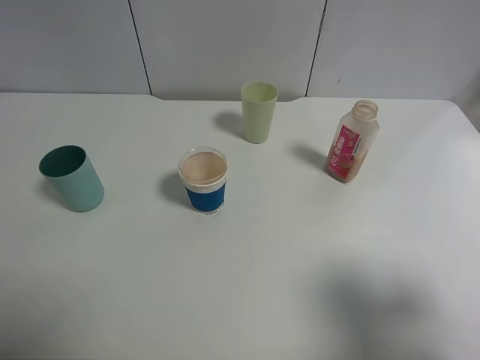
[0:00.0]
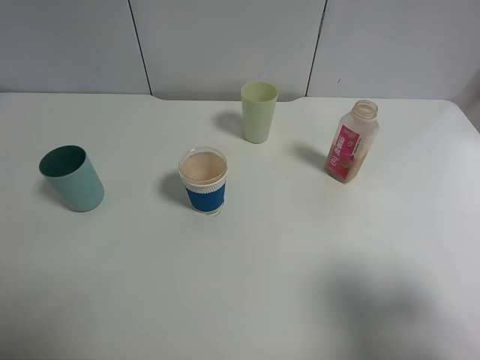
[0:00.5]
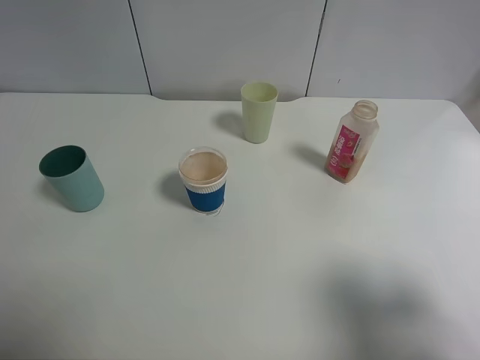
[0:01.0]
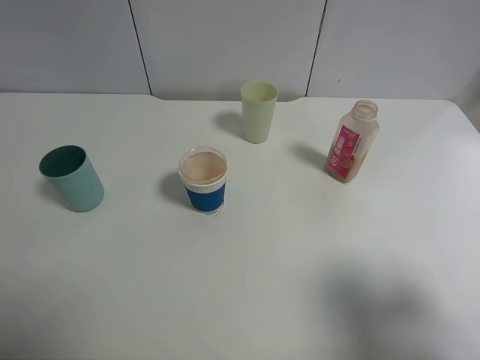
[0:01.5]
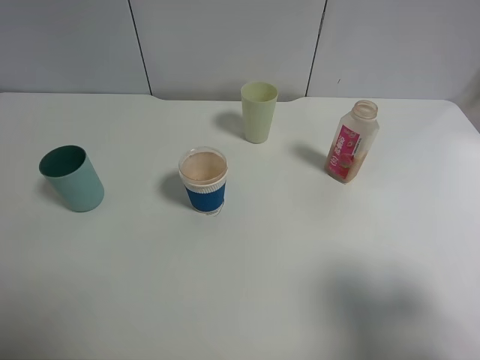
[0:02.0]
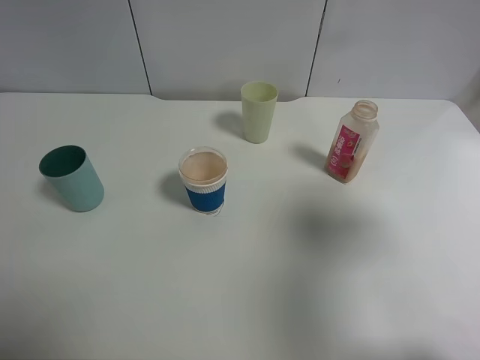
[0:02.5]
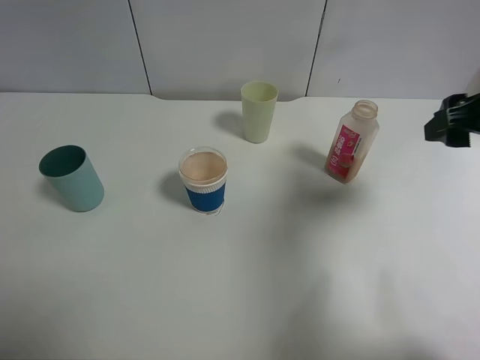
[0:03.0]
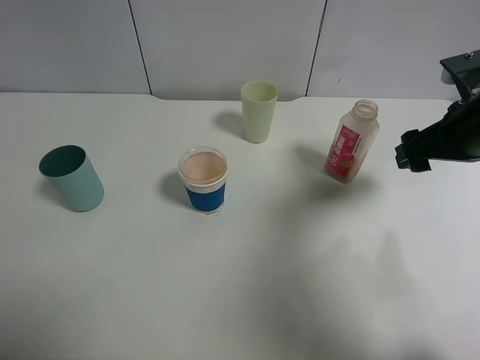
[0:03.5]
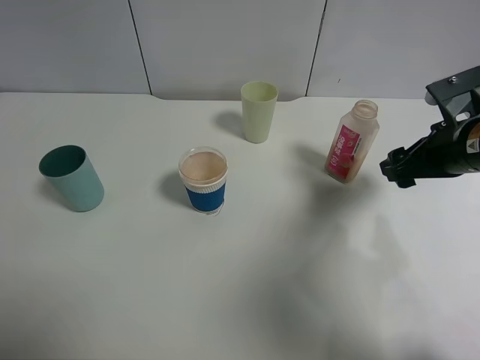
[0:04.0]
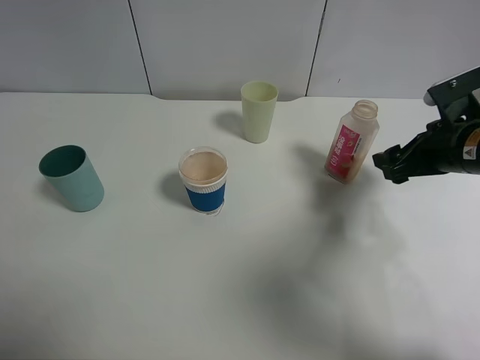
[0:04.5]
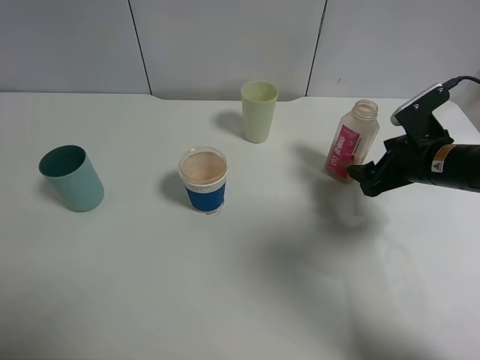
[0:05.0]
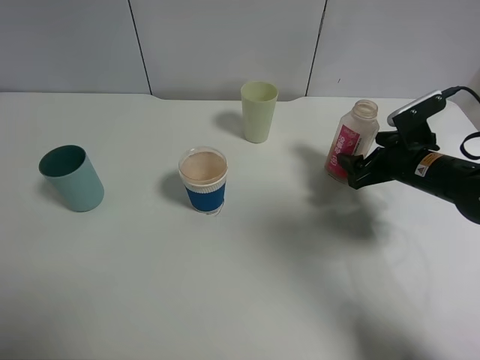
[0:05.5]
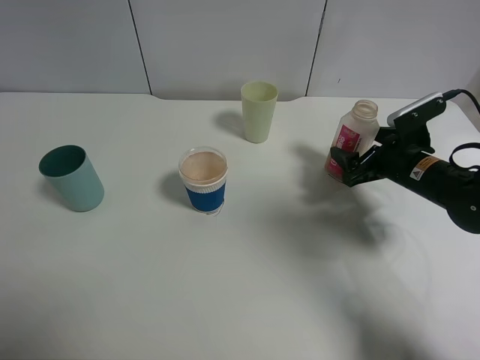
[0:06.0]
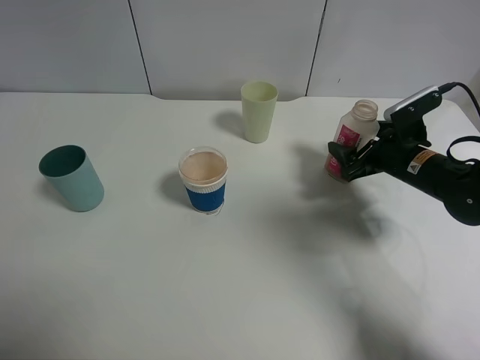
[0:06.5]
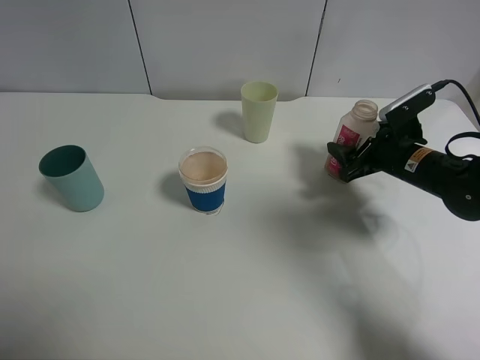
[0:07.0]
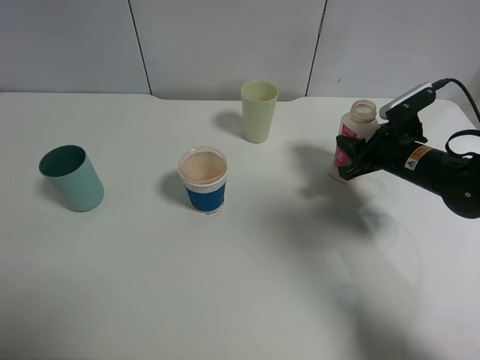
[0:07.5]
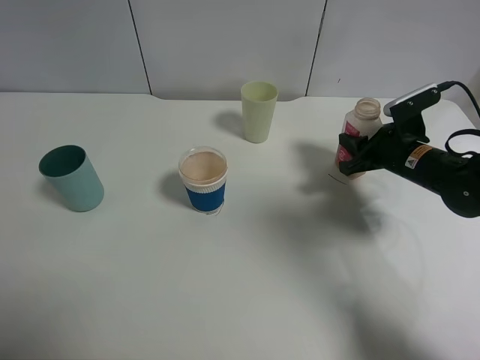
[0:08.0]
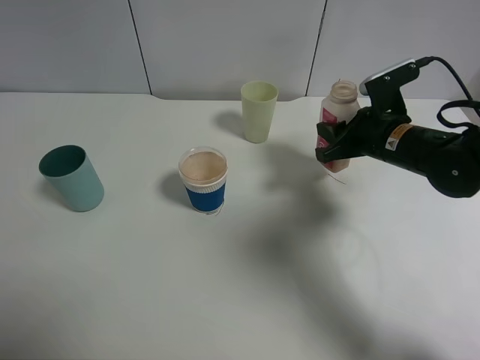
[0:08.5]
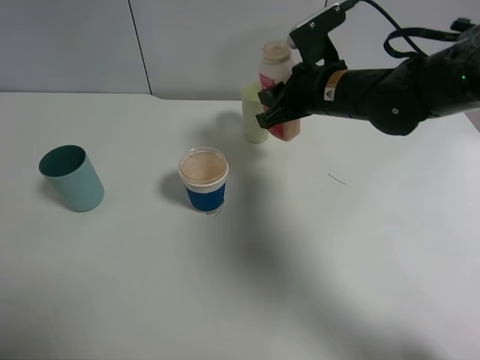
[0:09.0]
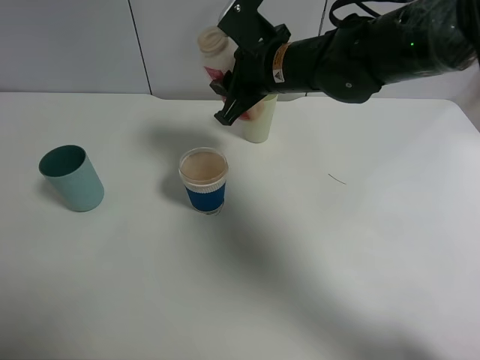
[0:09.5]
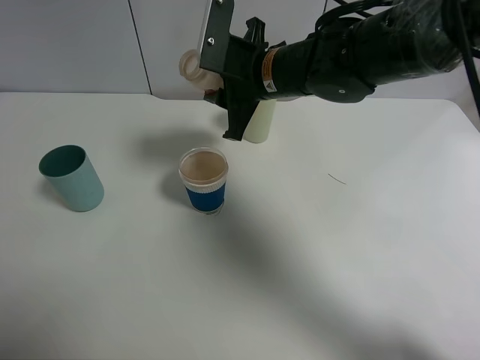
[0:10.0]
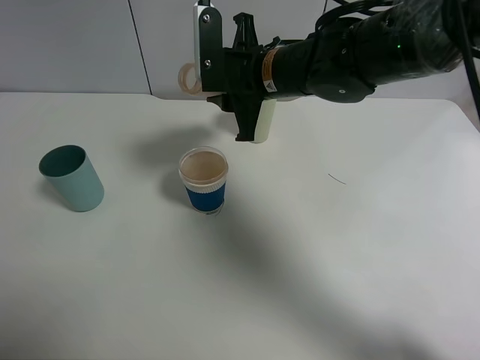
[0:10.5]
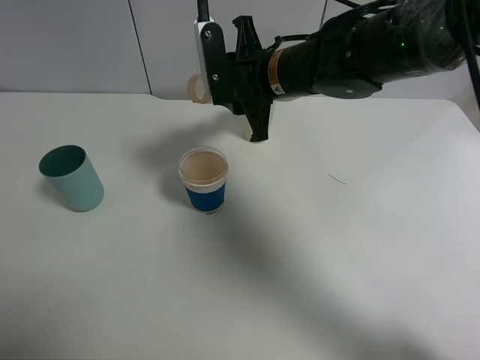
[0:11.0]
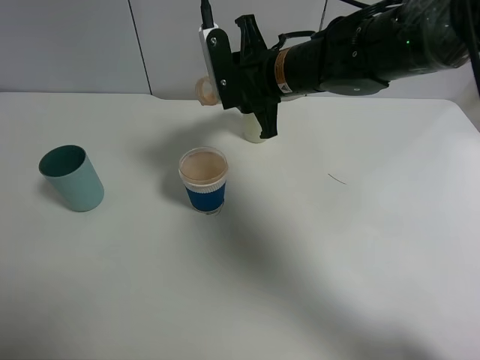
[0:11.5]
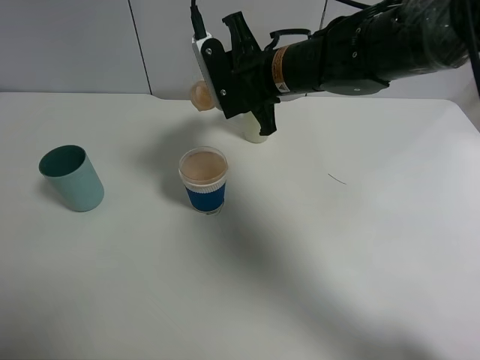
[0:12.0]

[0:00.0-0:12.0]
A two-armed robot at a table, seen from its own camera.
Task of the whole recording: use a clamp to hold the bottle of the drink, pour the beverage into a random cup, then clamp the cup containing the drink and pour the drink into another random cup.
Step, 0:00.0 to 0:08.0: Pick up the drink bottle with right gripper.
0:00.0 to 0:02.0: Both grippers stay about where they are.
0:02.0 to 0:04.0: The right gripper goes about 25 cm forward.
0:04.0 to 0:06.0: The right gripper heads downward, covering approximately 10 cm.
0:06.0 to 0:08.0: The right gripper closes.
0:08.0 to 0:10.0: The right gripper is displaced to the left and upward by approximately 25 cm.

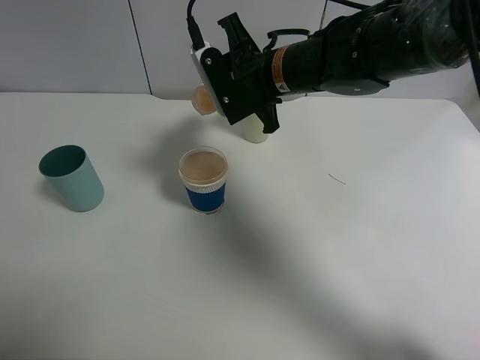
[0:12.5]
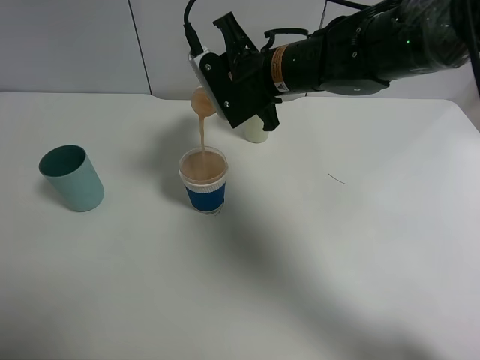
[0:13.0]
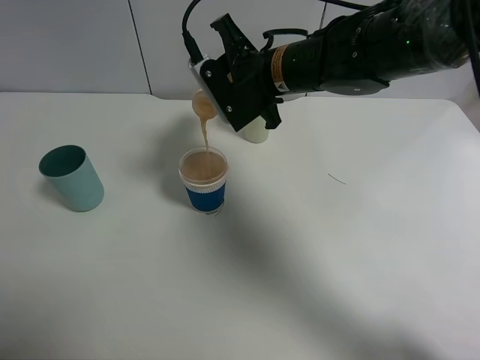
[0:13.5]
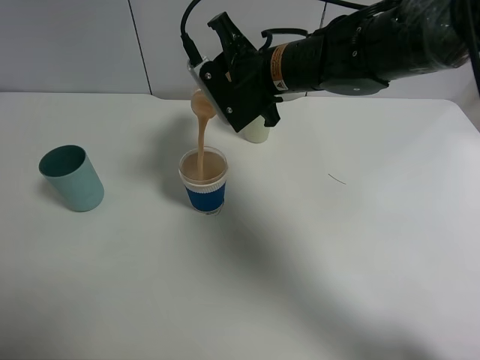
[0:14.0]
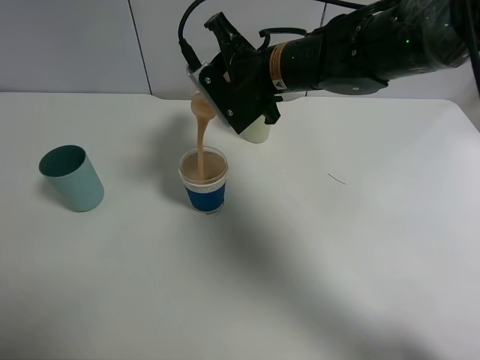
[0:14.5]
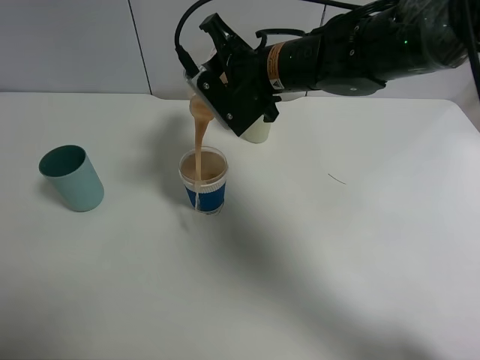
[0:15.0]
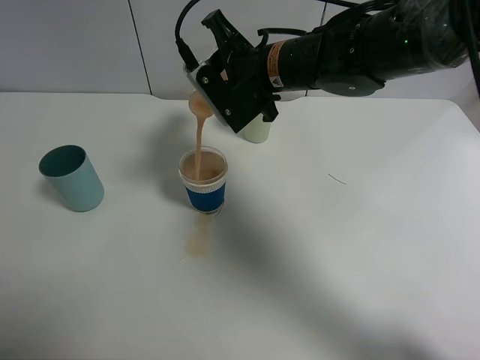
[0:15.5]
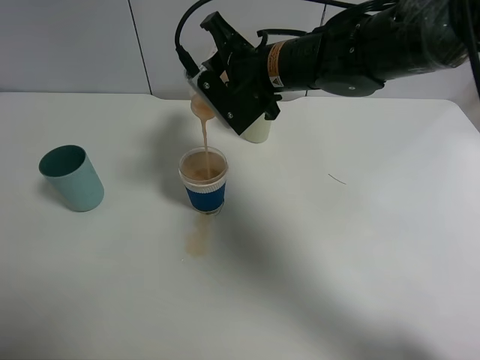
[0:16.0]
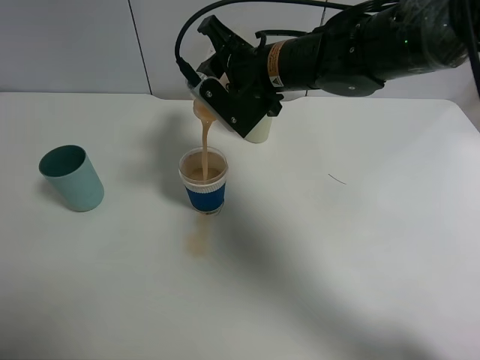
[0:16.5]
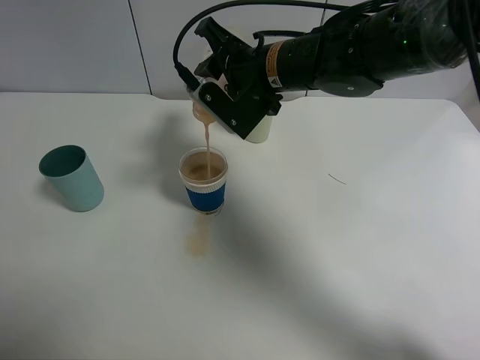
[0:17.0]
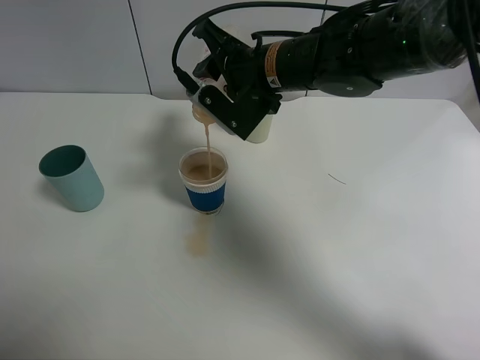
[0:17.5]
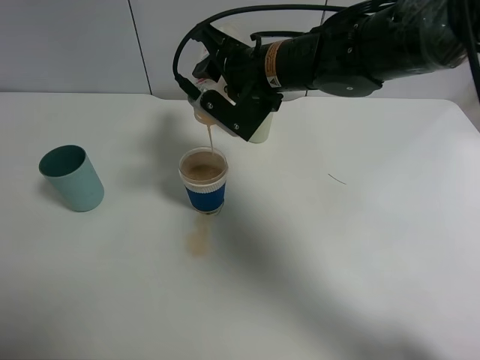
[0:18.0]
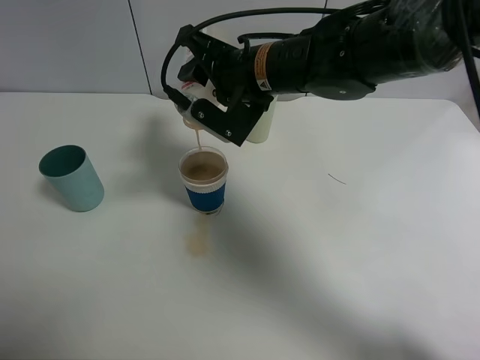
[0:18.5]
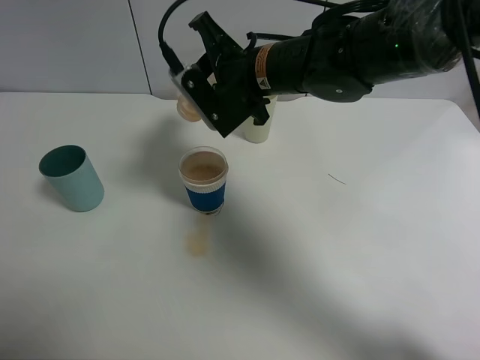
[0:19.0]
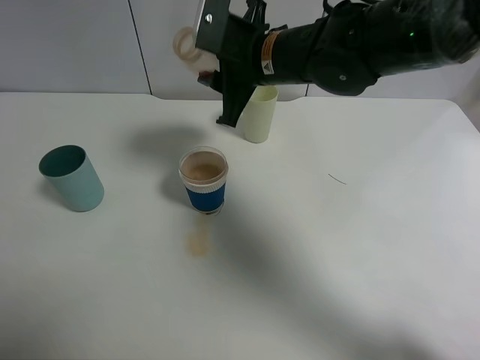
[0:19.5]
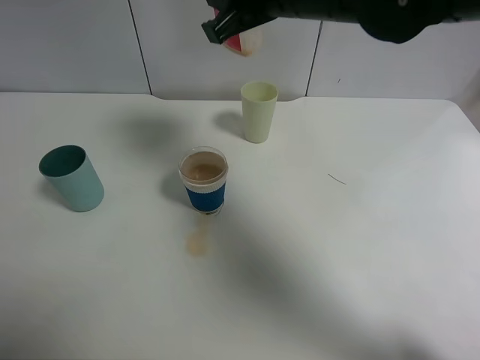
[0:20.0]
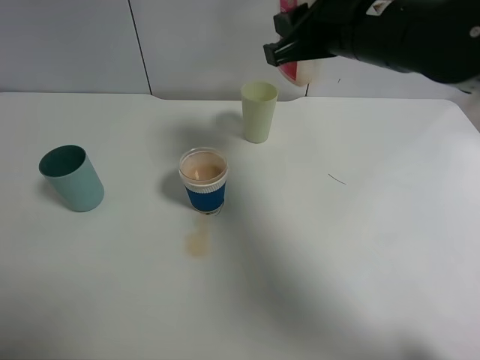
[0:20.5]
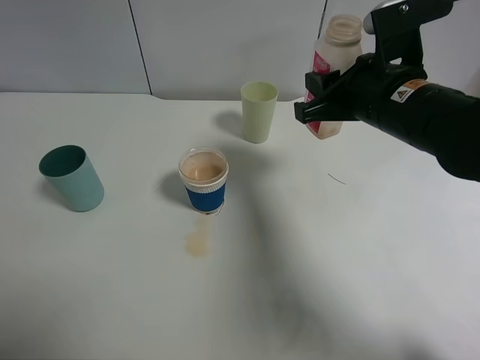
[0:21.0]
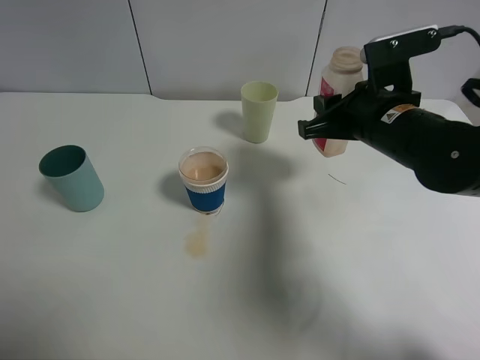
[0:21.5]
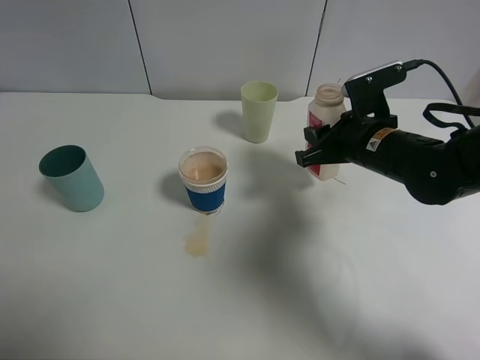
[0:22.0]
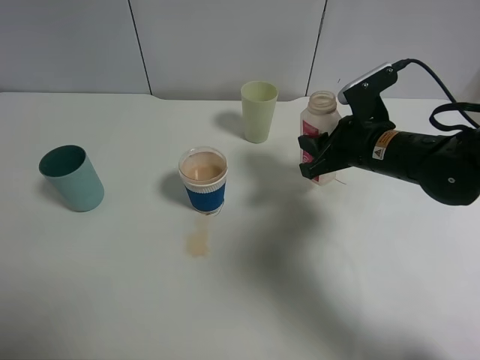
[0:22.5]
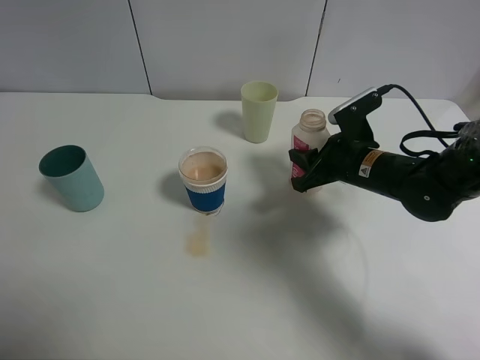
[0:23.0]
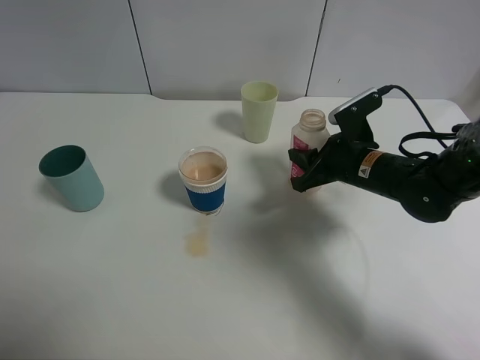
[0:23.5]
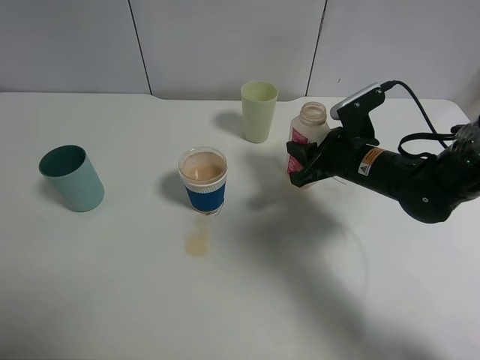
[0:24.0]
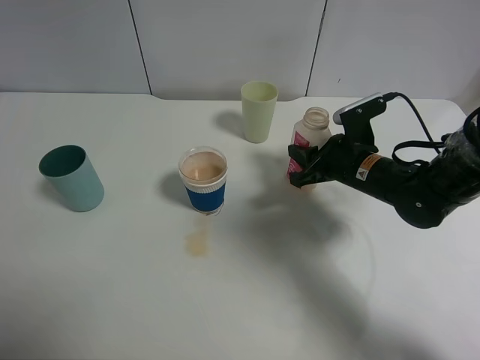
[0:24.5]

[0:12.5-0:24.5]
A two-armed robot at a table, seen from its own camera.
Task of the whole recording: use a clamp to hold the bottle of the drink, pour the beverage into a random cup, then clamp the cup containing the drink and pour the drink into another random cup.
Step, 0:12.5 to 0:19.0: Pour the drink into the paper cup with right gripper.
0:12.5 to 0:14.5: The grippers move only a little.
0:14.5 to 0:16.5: The grippers stay close to where they were, moving slightly.
0:16.5 to 0:18.5: The grippers make only small movements.
0:18.5 to 0:20.5: The right gripper moves to the right and upward, approximately 10 cm.
0:20.5 to 0:22.5: The right gripper shifts some 15 cm downward and to the right.
0:22.5 to 0:24.5: The right gripper shifts by about 5 cm.

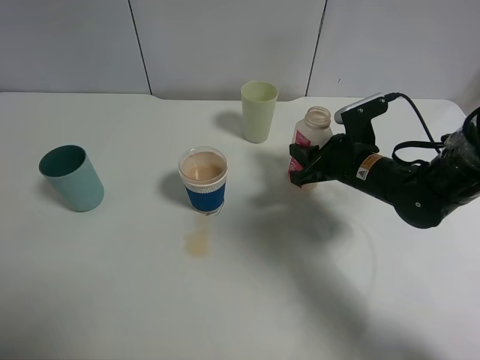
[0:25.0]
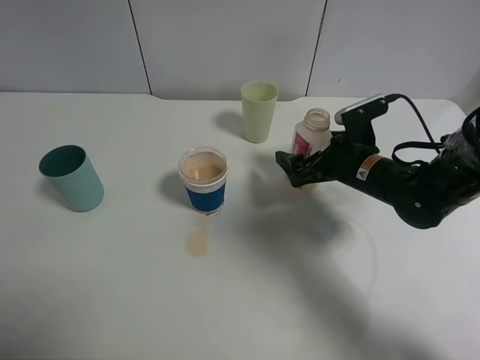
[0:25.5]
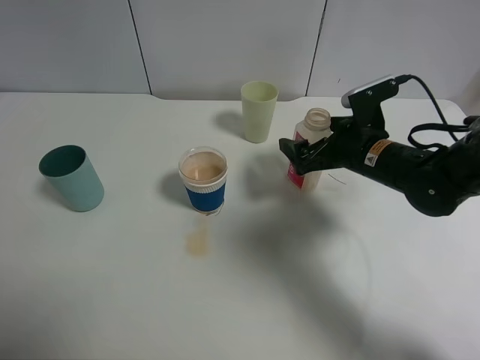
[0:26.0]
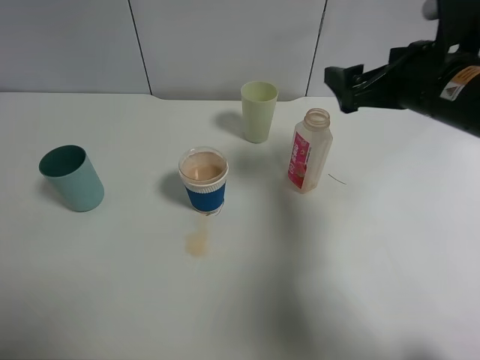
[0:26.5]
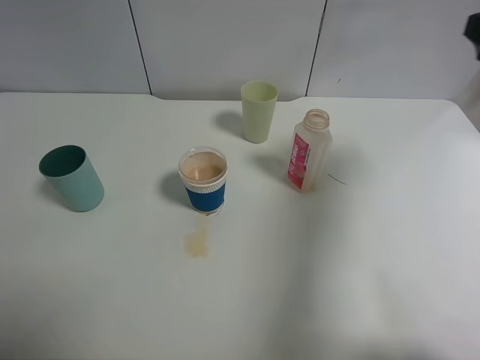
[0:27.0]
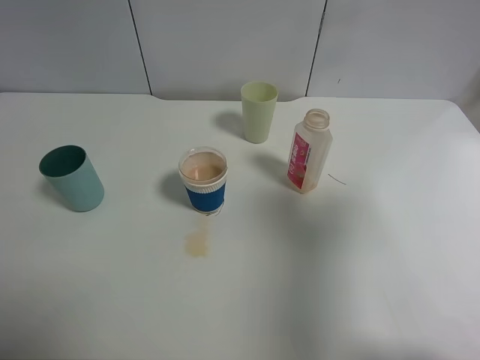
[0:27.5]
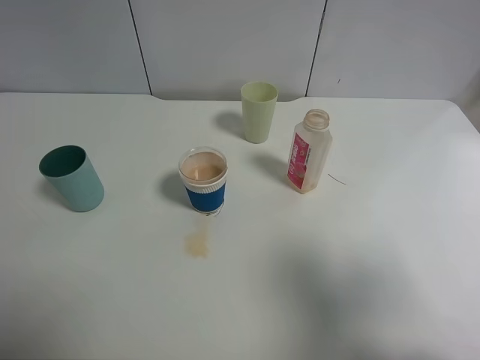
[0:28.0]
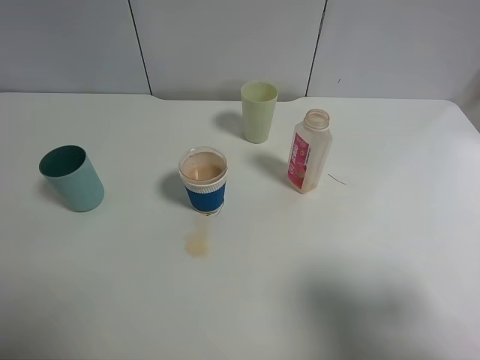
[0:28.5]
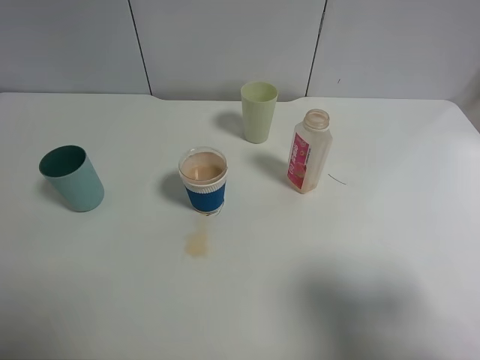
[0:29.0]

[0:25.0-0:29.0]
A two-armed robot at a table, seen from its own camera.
Task of the whole recording: use a clamp to hold the bottle of the drink, pour the beverage into a random cup, then clamp the cup containing the drink and pour the drink into another random cup.
0:25.0 to 0:27.0: The right gripper heads upward and to the right, covering approximately 25 cm, and opens.
0:27.0 to 0:29.0: The right gripper heads backward, covering roughly 25 cm.
